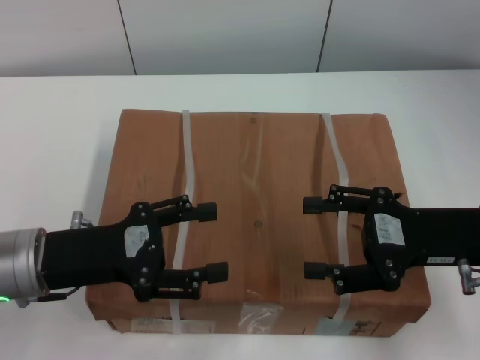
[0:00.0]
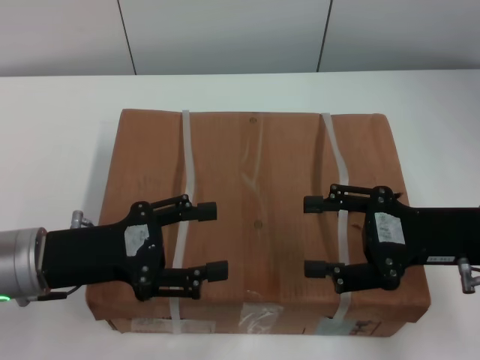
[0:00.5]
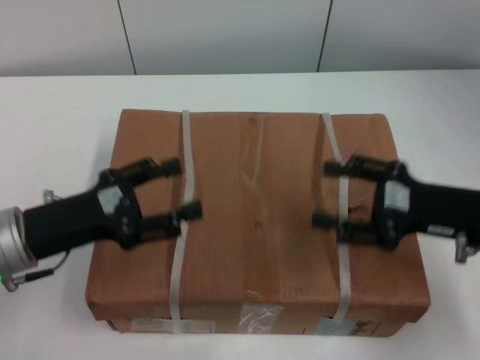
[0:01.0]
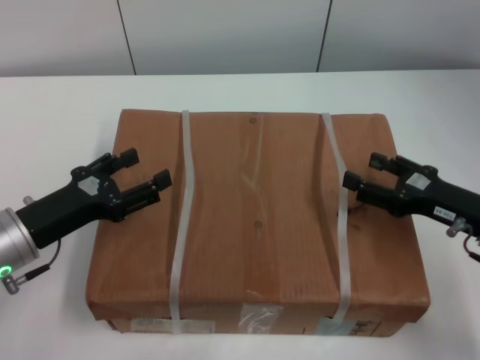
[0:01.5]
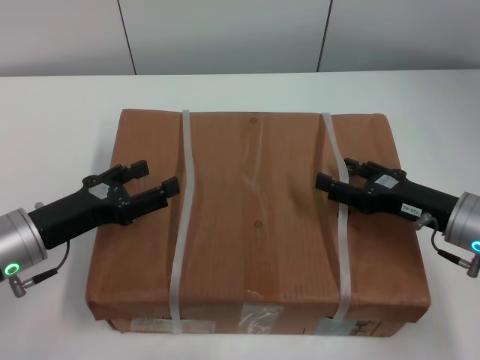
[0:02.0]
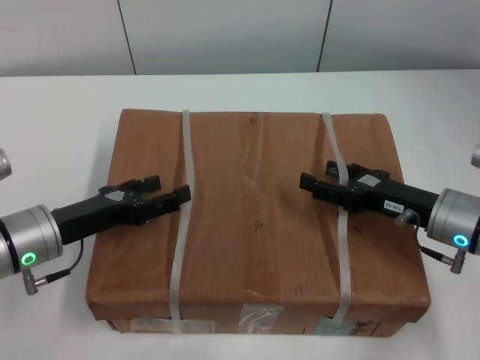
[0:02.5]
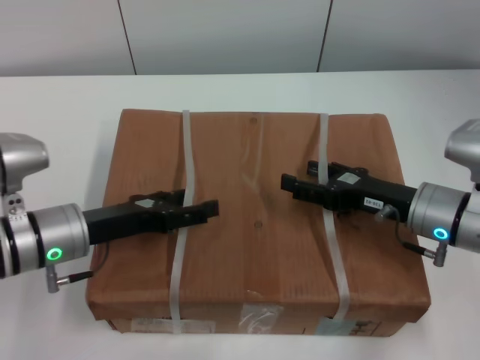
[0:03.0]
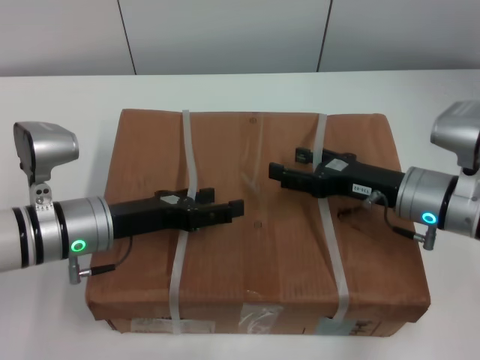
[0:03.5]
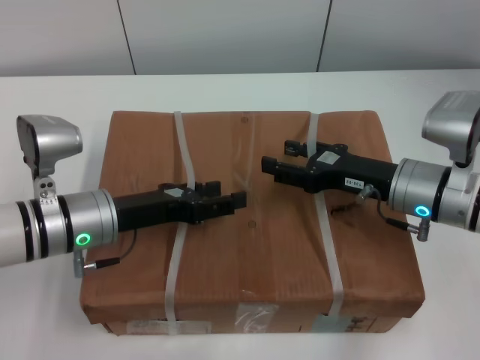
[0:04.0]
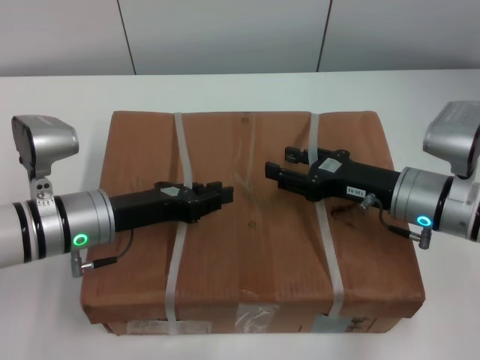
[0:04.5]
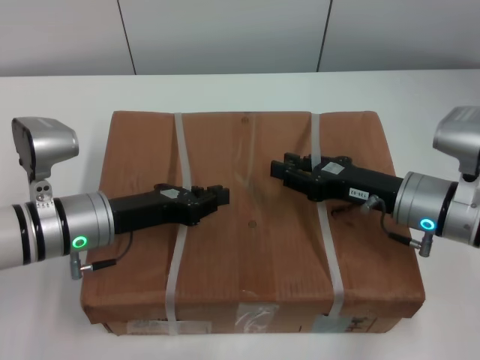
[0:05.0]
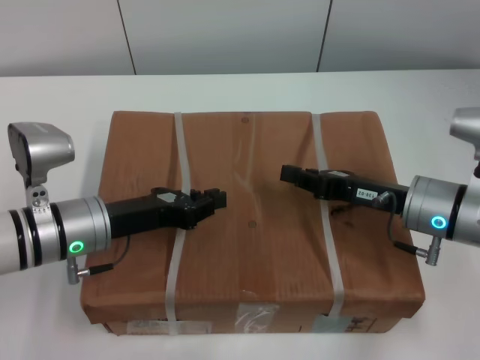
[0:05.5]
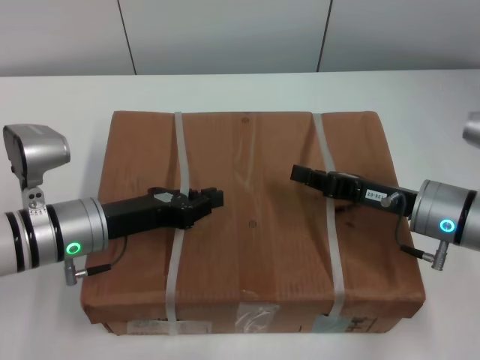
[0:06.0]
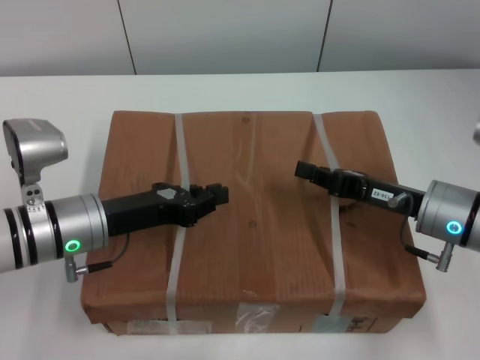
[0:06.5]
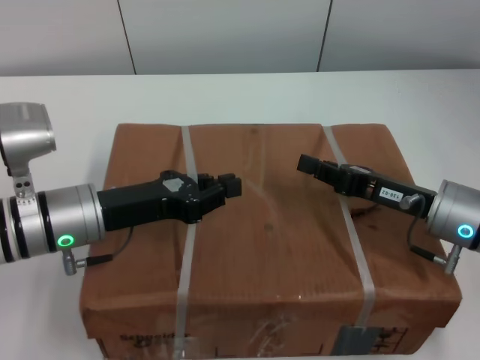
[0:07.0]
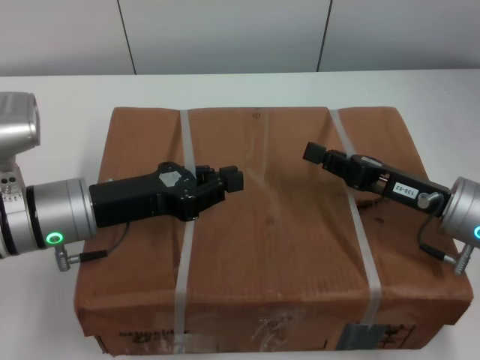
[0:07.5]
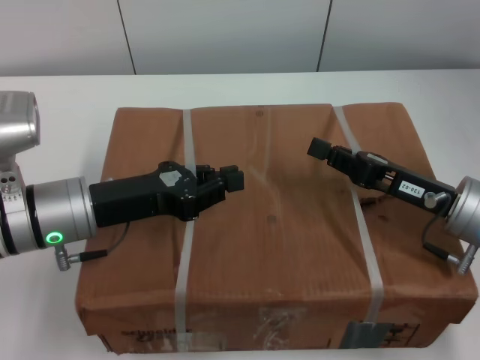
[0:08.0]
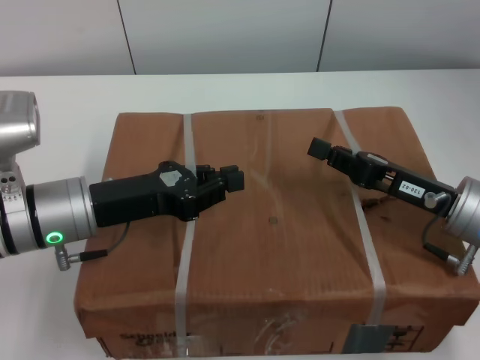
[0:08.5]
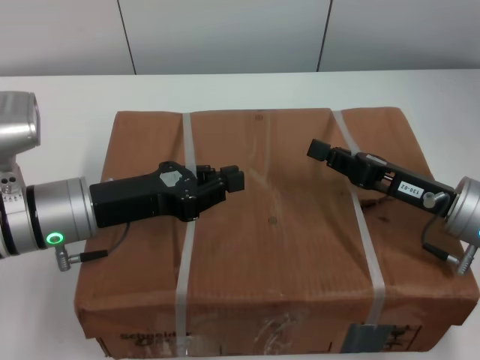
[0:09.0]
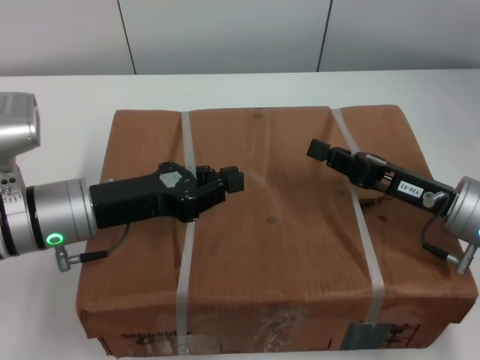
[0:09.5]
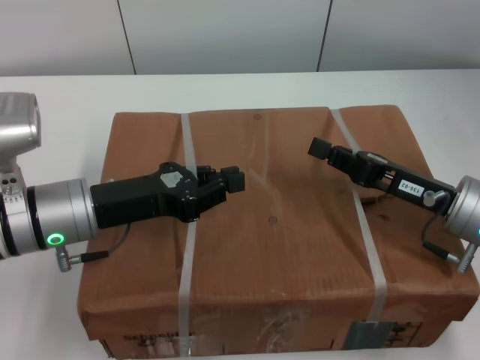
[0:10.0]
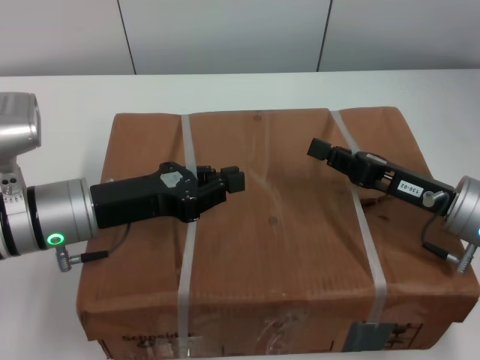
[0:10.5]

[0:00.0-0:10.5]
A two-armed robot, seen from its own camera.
Task of the whole recording: pick up the box from the table with both arms.
Step, 0:00.5 to 0:05.5: Grasp the bandage with left gripper.
Step, 0:00.5 to 0:05.5: Grasp the bandage with right gripper.
Step, 0:06.0 to 0:07.5: Lift the box with left gripper.
Step, 0:06.0 to 0:07.5: Lift the box with right gripper.
0:00.0 to 0:02.0: The right gripper moves downward, roughly 5 cm.
0:02.0 to 0:04.0: The right gripper travels to the left by roughly 5 cm. The left gripper moves to the right, some 5 cm.
0:04.0 to 0:06.5: The left gripper closes its fingers; the right gripper closes.
0:08.5 to 0:10.5: Both grippers stay put.
